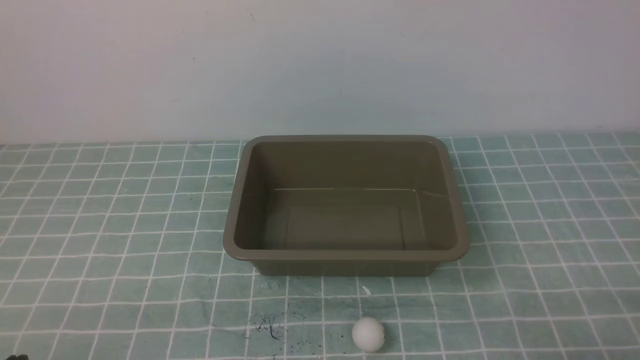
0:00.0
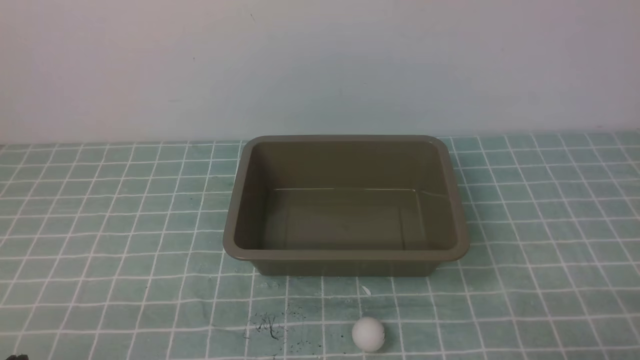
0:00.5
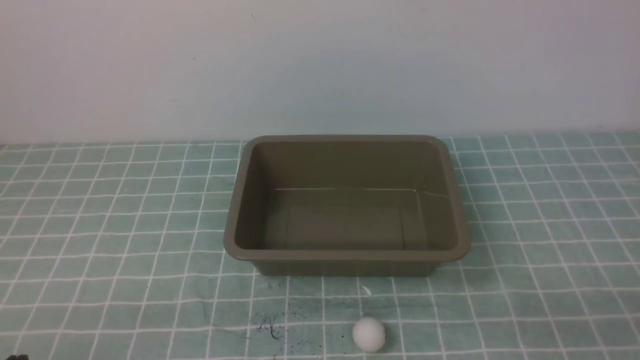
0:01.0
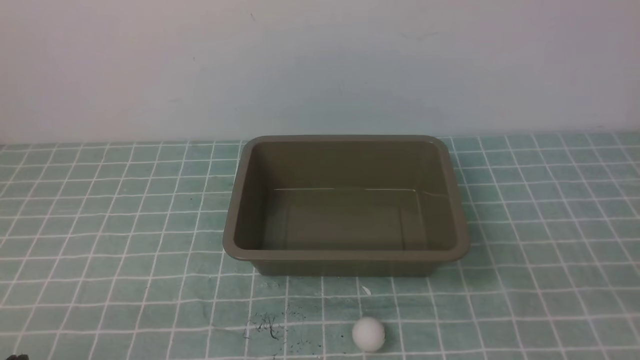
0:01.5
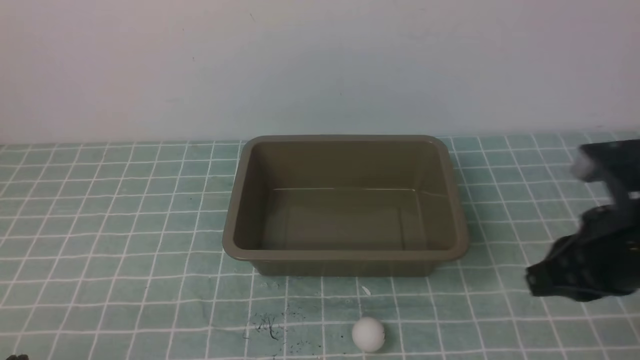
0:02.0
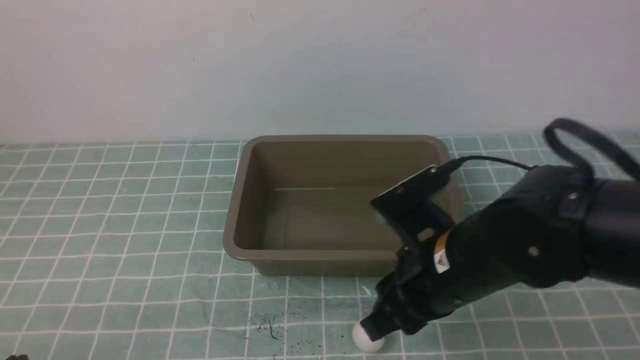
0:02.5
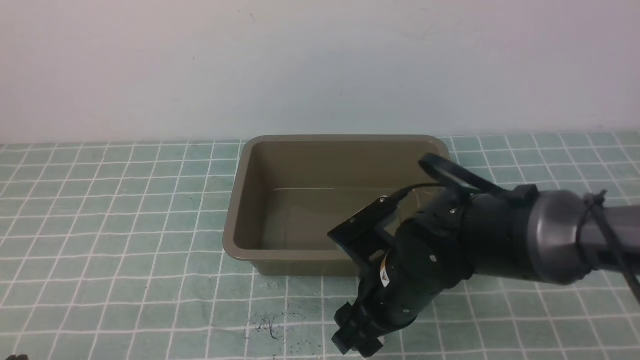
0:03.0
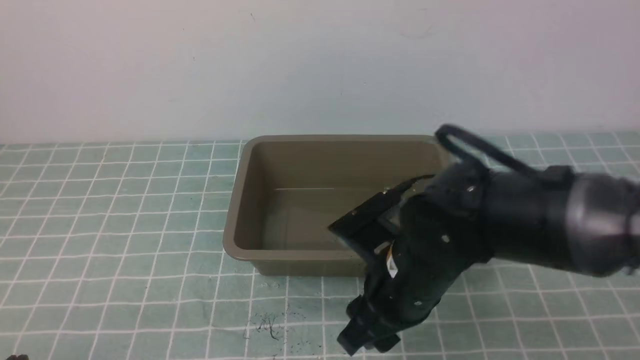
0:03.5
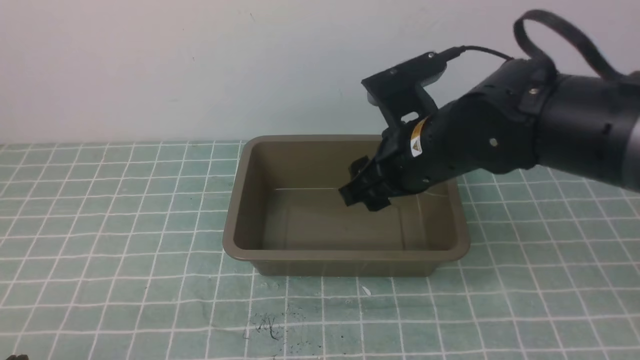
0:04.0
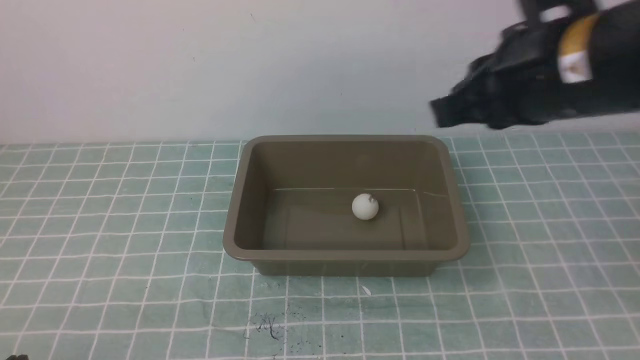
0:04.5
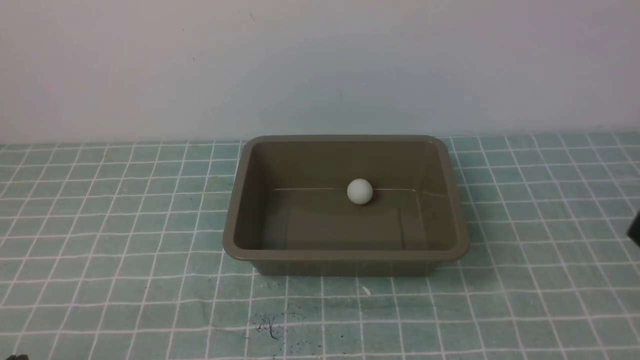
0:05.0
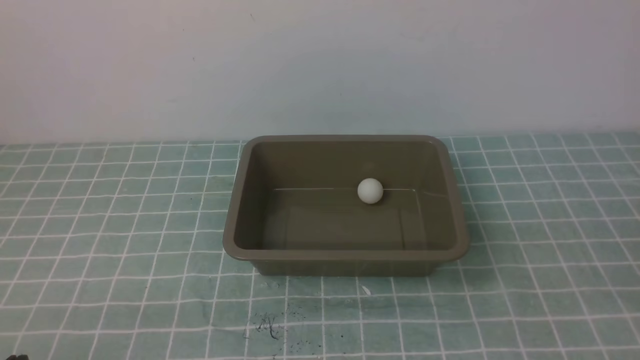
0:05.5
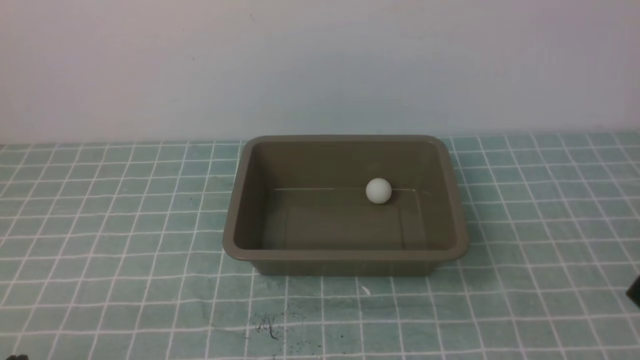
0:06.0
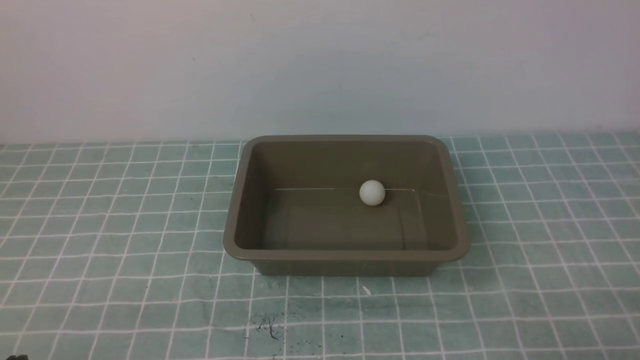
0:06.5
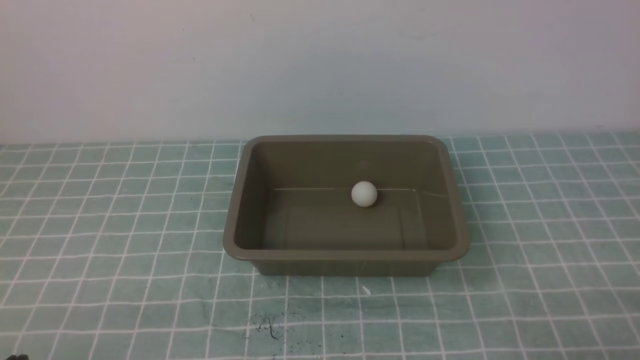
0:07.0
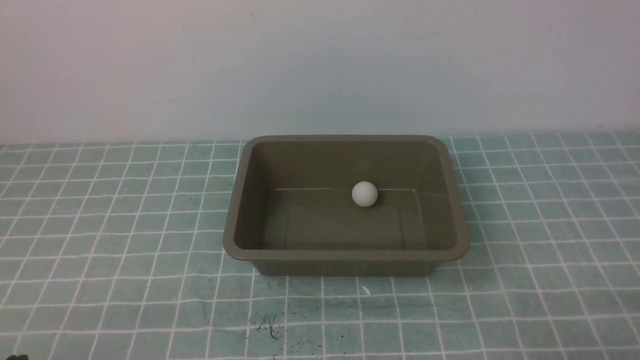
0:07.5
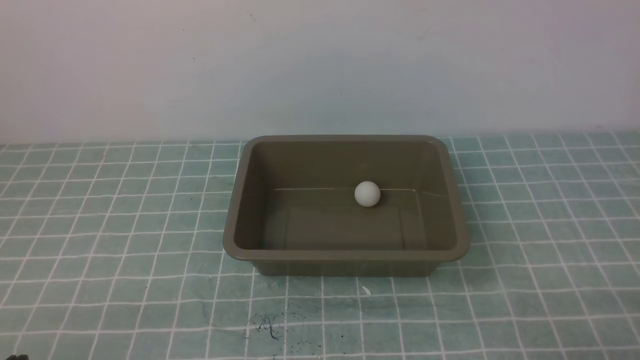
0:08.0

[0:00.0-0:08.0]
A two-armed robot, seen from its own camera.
Step, 0:00.0 to 0:03.0: use the right arm to clamp the table tennis ball closest to it.
Step, 0:03.5 to 0:04.0: use the right arm to put the table tennis ball into the box.
0:02.0 to 0:04.0: The right gripper is displaced to the left and forward by some 20 cm, and opens up.
0:04.0 to 0:06.0: The right gripper goes approximately 30 cm backward and to the right, and closes its fingers.
